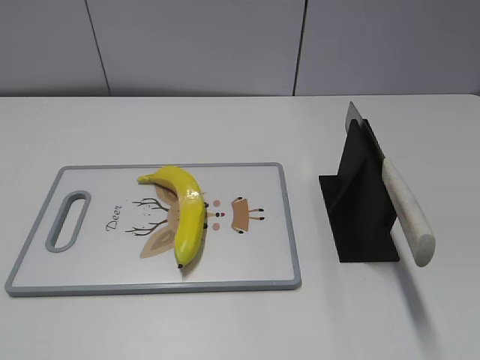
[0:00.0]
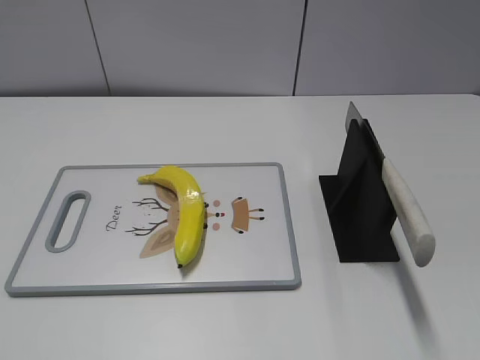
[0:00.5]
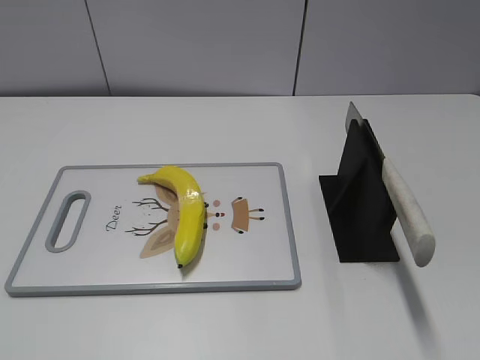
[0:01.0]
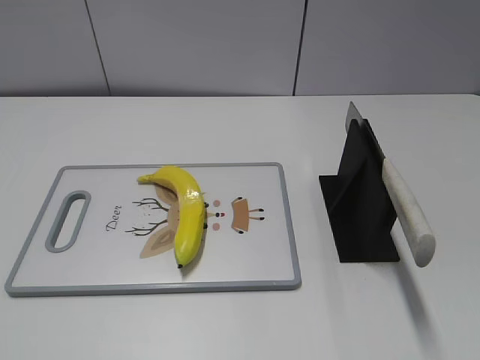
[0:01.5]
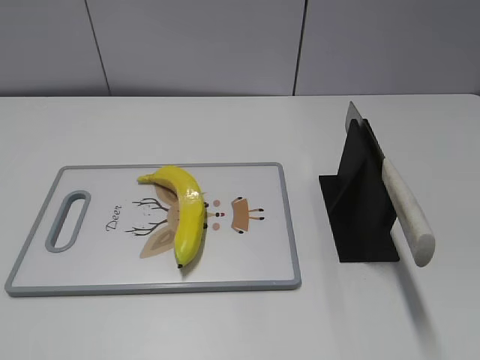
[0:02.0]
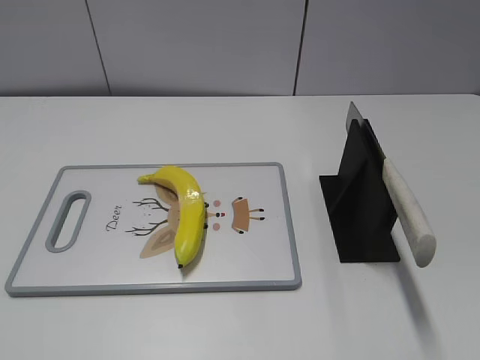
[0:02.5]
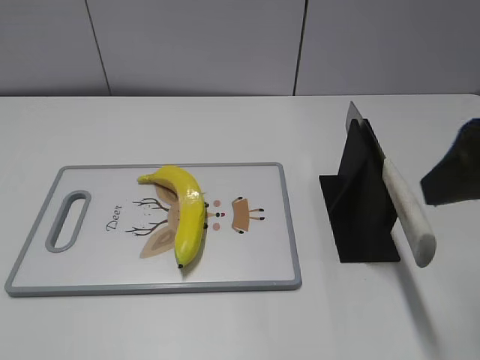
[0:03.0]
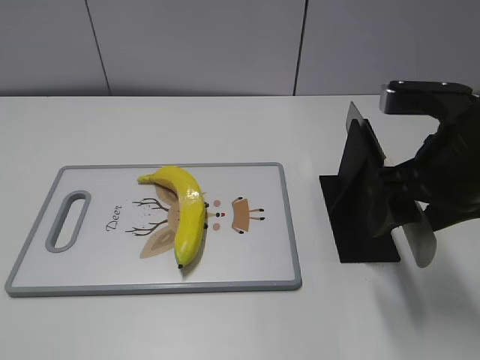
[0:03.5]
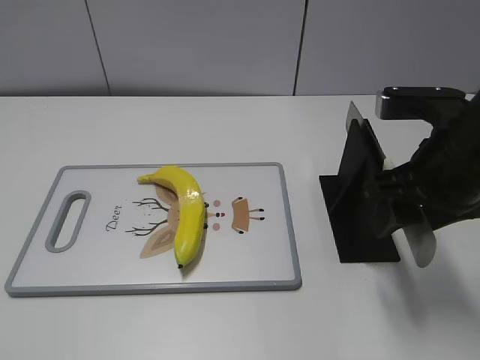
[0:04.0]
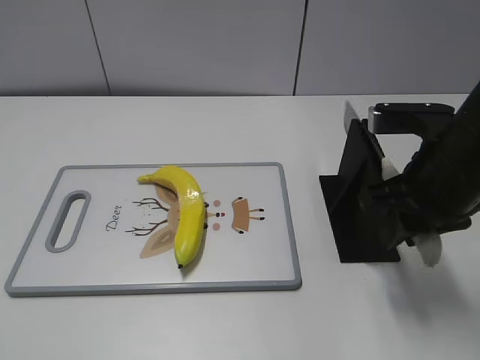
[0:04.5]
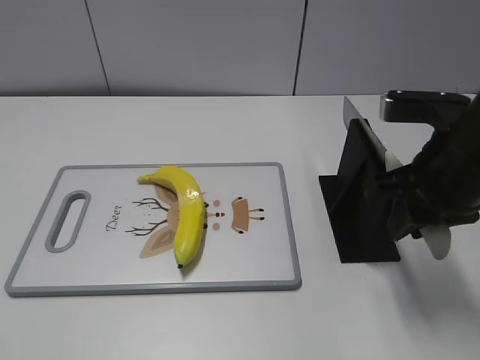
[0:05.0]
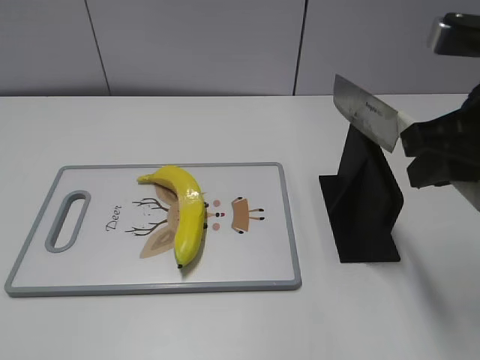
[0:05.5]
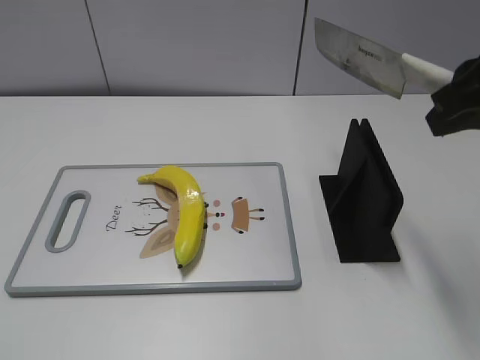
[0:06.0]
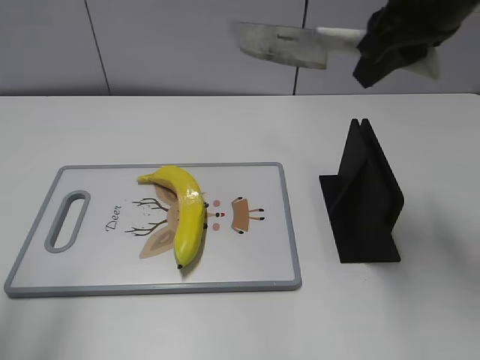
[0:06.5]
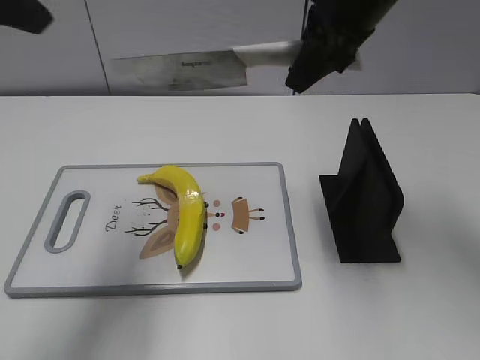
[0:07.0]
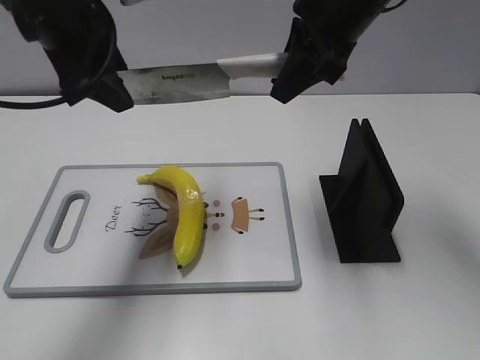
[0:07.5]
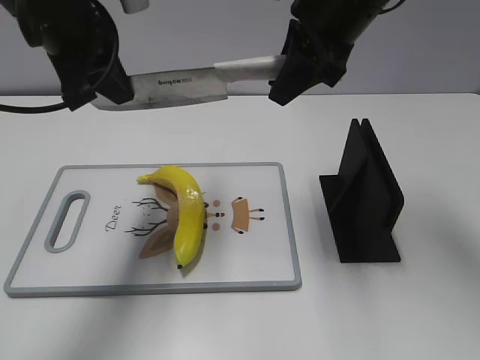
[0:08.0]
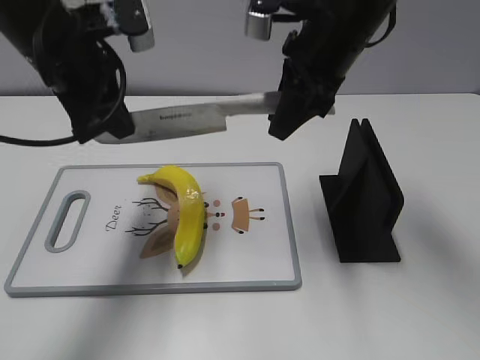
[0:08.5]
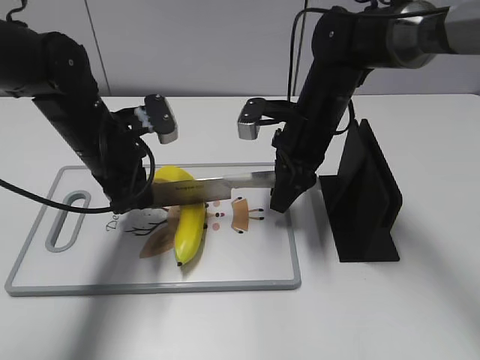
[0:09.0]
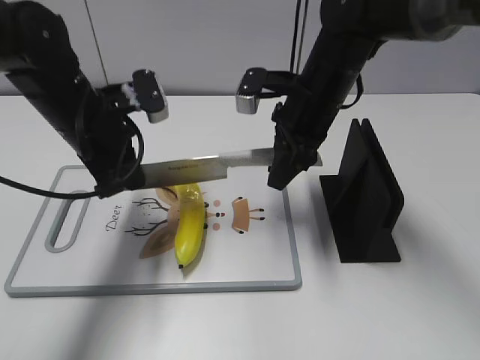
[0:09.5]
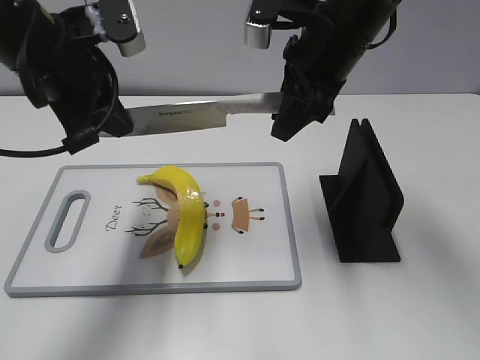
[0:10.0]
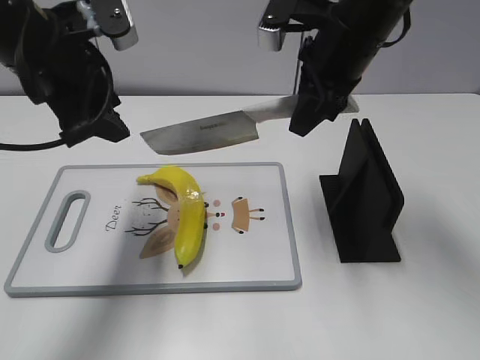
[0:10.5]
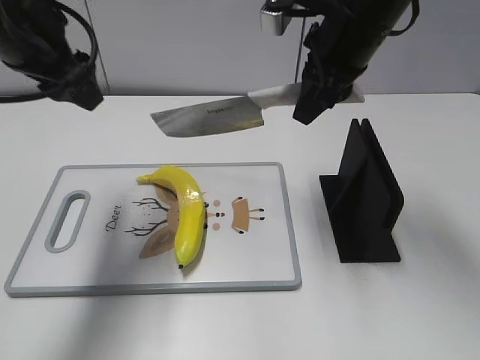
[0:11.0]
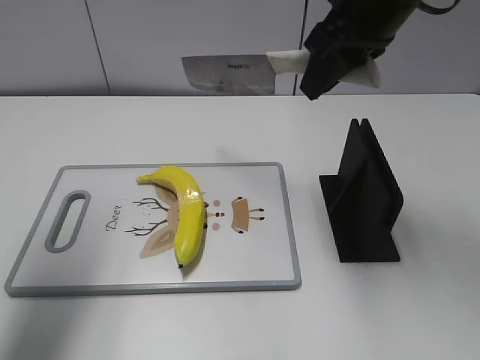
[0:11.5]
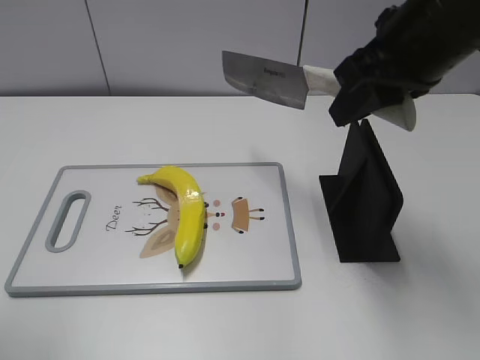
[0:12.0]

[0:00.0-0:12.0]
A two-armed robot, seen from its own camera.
Task of the whole recording: cut plastic banana.
Step, 0:00.0 to 0:05.5: Grab the knife handle with your right hand.
Step, 0:06.0 to 0:09.5: Hold the blade with your left hand.
Step, 0:10.0 to 0:11.0: Cut the banana with your right hand.
0:02.0 to 0:04.0: The right gripper heads forward and to the left, covering approximately 25 cm.
0:04.0 to 0:06.0: The right gripper shifts some 10 cm upward, and closes.
0:06.0 to 0:08.0: The right gripper is displaced forward and to the left by roughly 20 cm. Meanwhile the left gripper moves forward and to the right, about 35 cm, and closes its fingers.
0:08.0 to 0:10.0: The right gripper reaches about 15 cm downward, then returns. Meanwhile the left gripper goes downward and returns, approximately 15 cm each way.
0:10.0 to 0:12.0: The left gripper heads backward, to the left and upward, covering approximately 20 cm, and opens. Meanwhile the right gripper moves backward, roughly 5 cm.

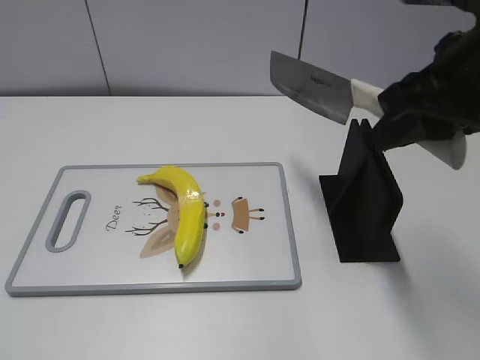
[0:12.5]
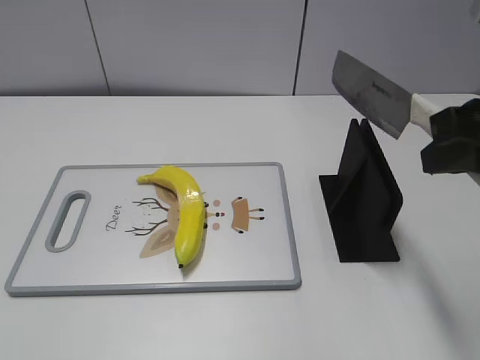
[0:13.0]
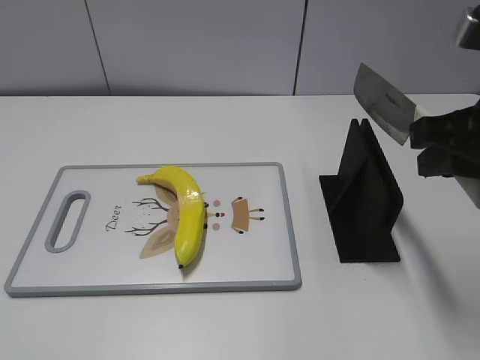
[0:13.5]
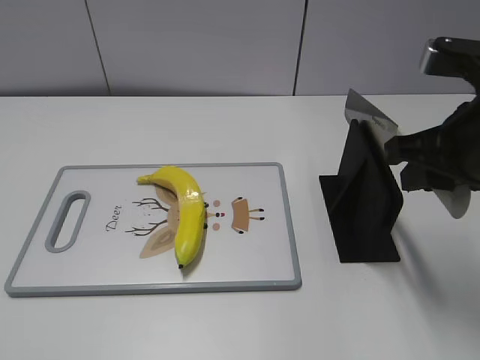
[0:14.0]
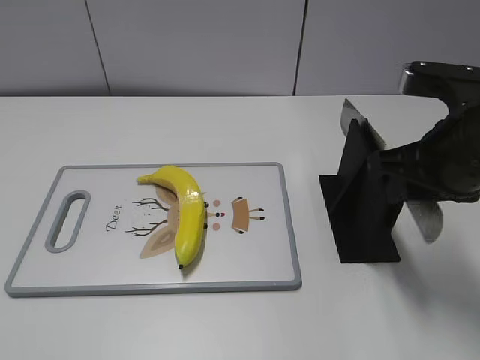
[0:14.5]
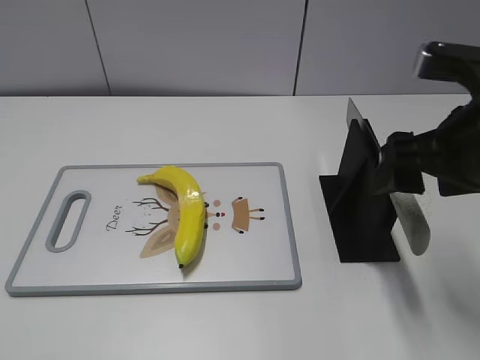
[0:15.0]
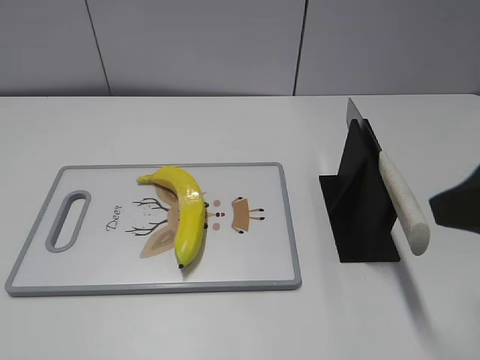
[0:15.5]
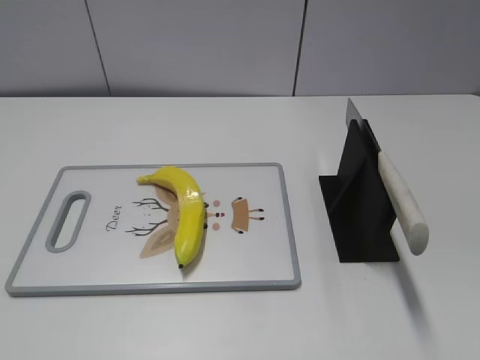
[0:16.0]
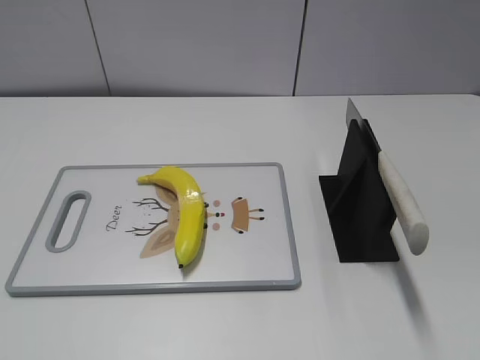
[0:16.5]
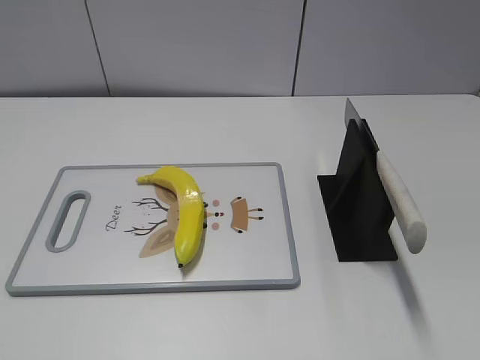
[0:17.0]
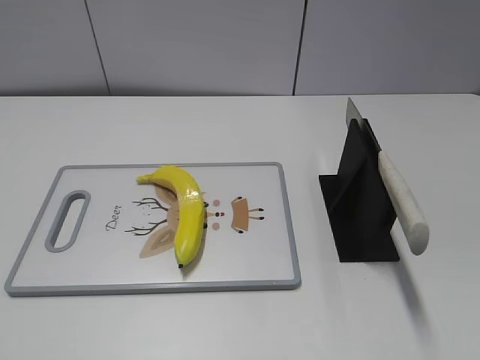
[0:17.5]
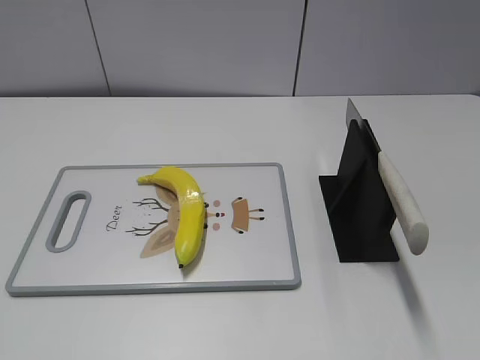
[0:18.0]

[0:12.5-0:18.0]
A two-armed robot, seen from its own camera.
Task of the whole recording: cut plastic banana.
Step, 0:13.0 to 0:18.0: Place the knife on the storage rack with your right hand.
0:12.5 to 0:14.5: The right gripper heads downward, covering approximately 10 cm.
0:14.5 to 0:16.0: The right gripper shifts about 15 cm backward, and opens.
